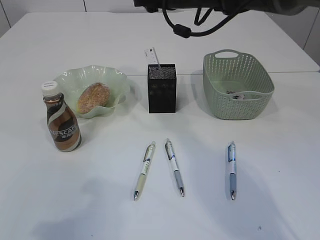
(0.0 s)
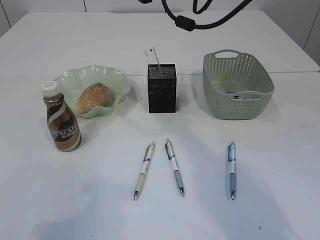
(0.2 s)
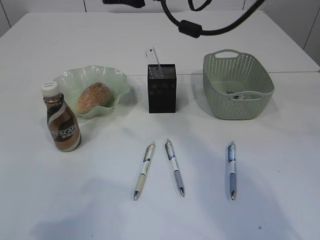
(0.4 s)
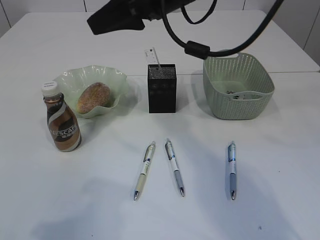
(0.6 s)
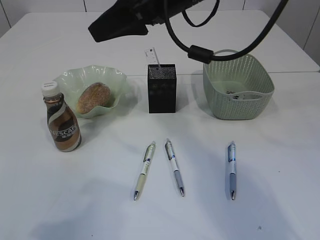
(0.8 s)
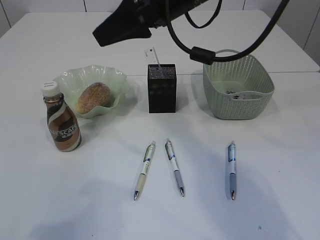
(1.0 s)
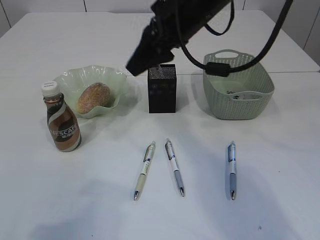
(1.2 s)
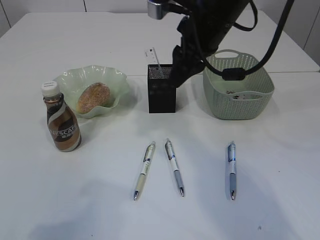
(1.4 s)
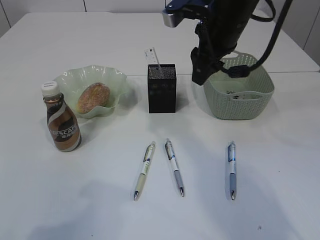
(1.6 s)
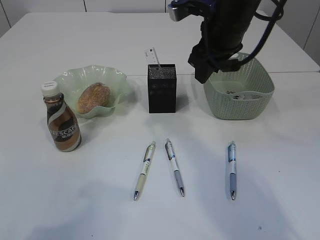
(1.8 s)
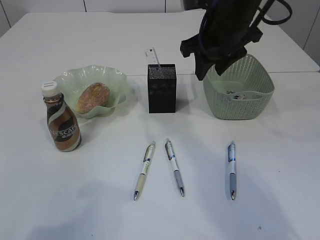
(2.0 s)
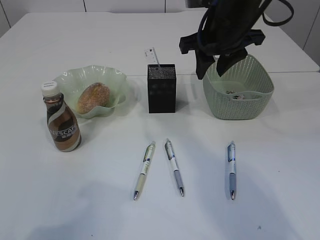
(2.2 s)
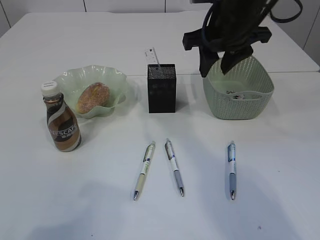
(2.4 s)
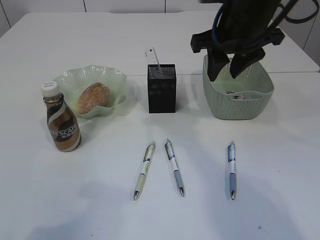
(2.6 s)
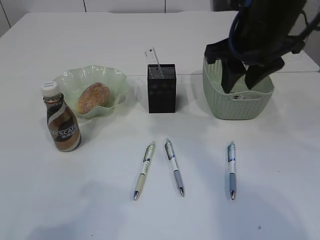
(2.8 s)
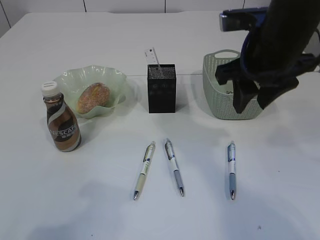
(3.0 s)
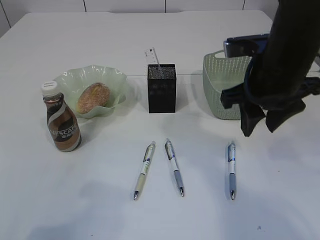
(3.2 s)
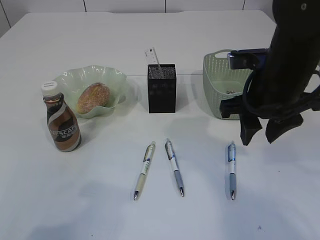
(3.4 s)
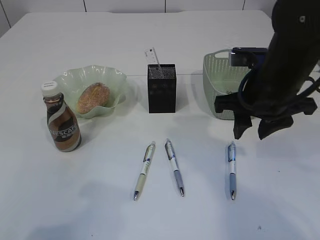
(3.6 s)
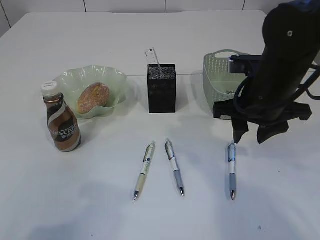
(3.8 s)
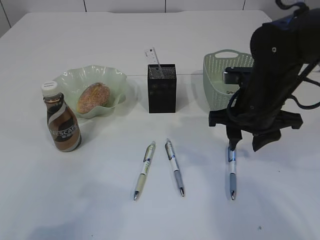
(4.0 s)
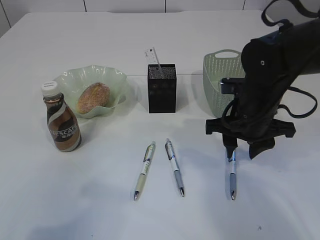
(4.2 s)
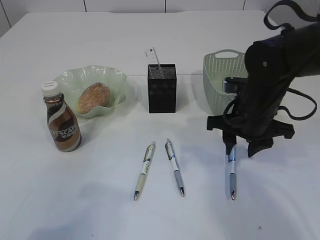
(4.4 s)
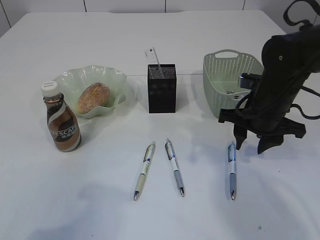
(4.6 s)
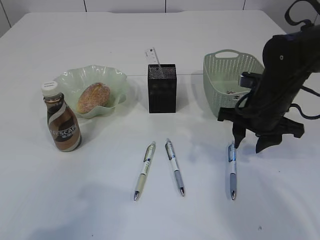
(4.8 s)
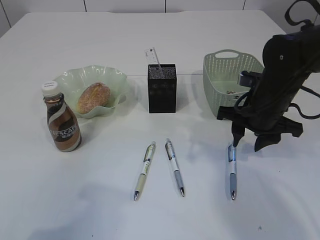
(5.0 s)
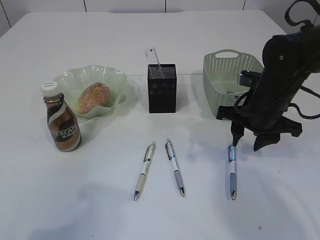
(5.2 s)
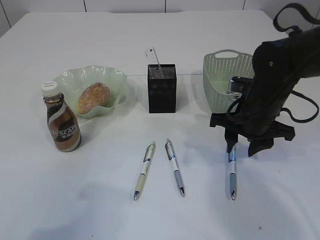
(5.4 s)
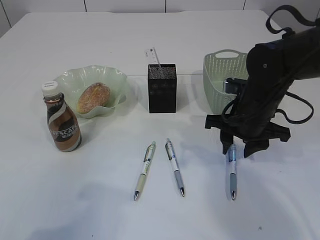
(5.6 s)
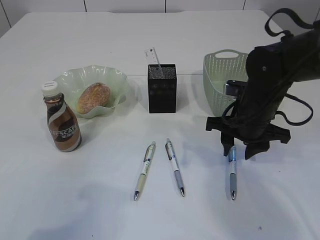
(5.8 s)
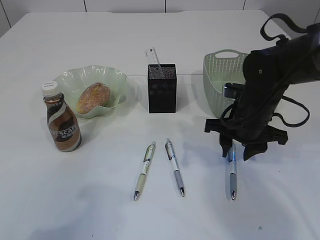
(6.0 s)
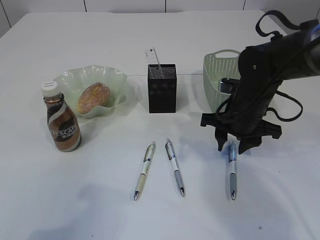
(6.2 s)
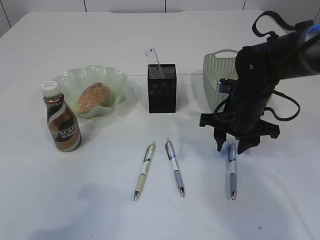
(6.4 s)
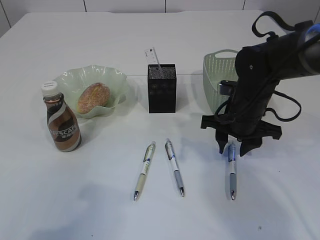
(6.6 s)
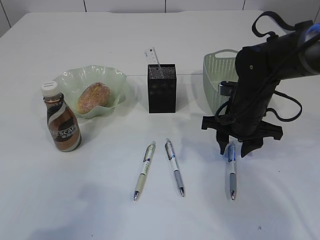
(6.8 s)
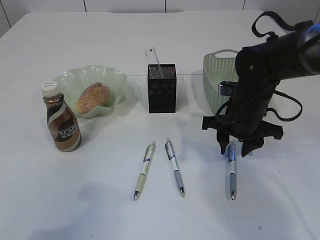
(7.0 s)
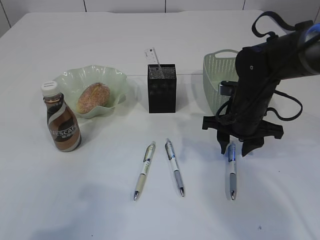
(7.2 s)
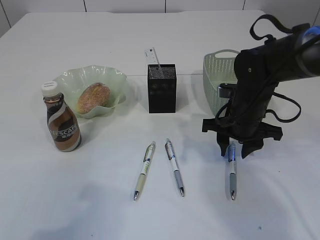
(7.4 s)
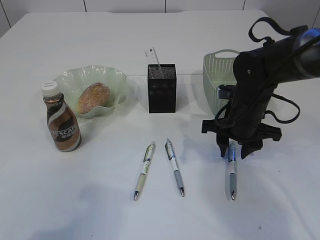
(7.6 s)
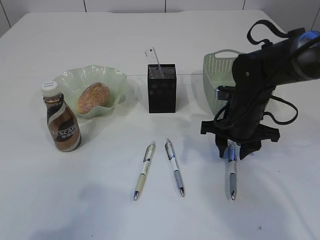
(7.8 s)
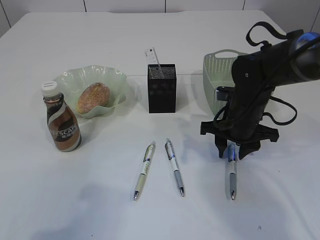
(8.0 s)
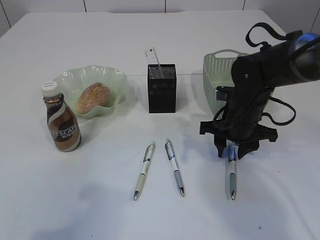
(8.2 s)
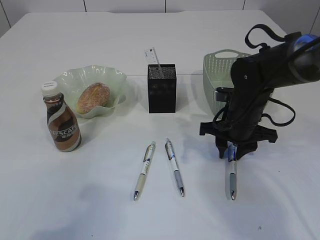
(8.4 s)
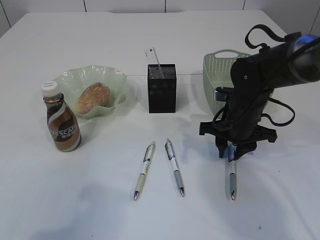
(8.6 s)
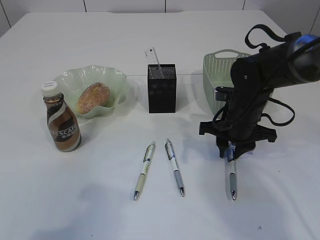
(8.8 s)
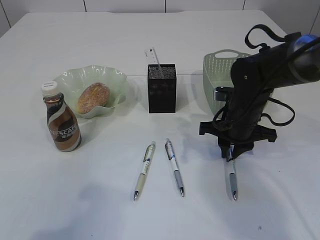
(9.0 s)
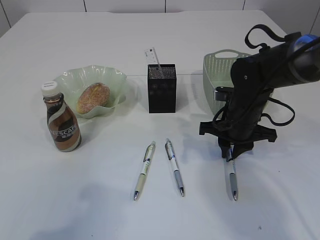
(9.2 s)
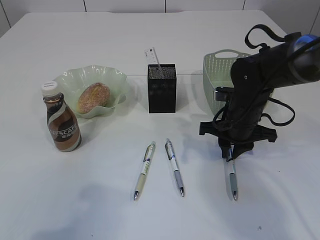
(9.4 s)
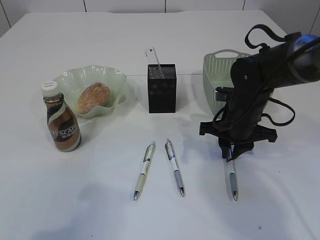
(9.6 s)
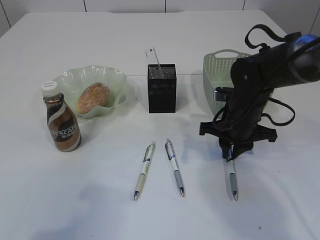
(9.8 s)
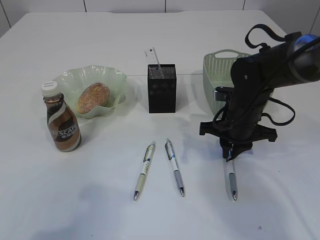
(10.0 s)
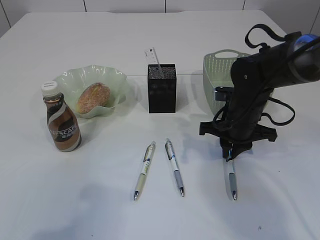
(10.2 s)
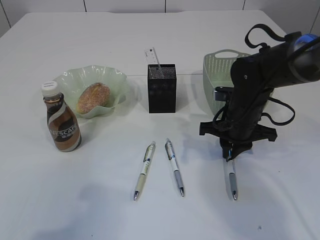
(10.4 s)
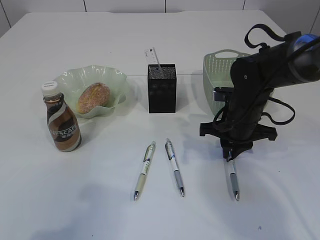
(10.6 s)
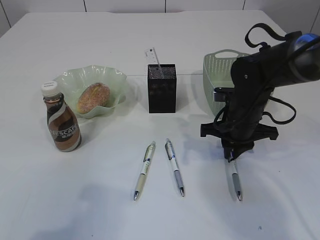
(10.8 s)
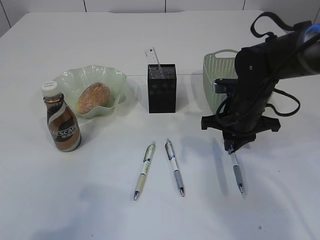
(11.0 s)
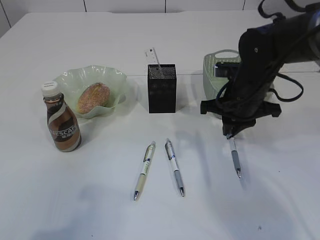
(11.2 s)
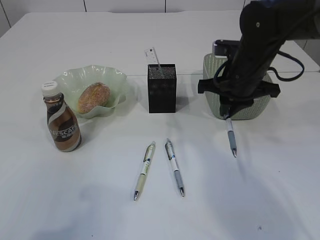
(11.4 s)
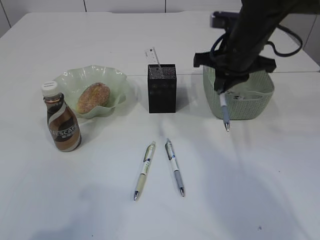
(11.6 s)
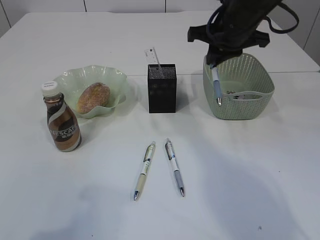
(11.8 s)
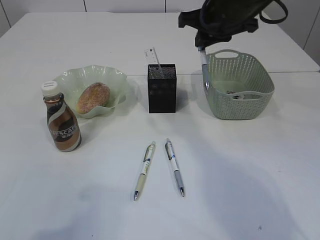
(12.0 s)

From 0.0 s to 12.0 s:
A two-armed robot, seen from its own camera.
Step, from 0.0 s to 11.4 s: Pick up the pen with right arm.
From 0.0 s to 1.6 s: The right gripper goes roughly 5 cm backward.
From 1.6 s to 3.0 s: The right gripper is displaced backward by roughly 10 cm.
From 3.0 s to 4.4 s: The right gripper is displaced downward by approximately 15 cm.
From 4.4 s to 7.6 s: There are only small adjustments of the grippers.
From 7.6 s to 10.4 s: Both grippers stay about where they are.
From 10.4 s to 12.0 s: The right gripper goes roughly 15 cm upward.

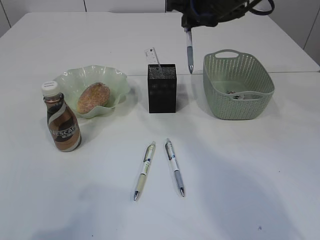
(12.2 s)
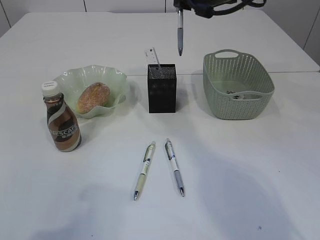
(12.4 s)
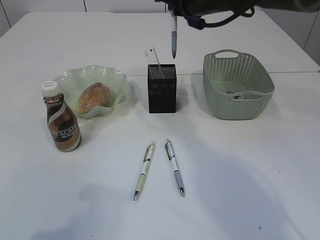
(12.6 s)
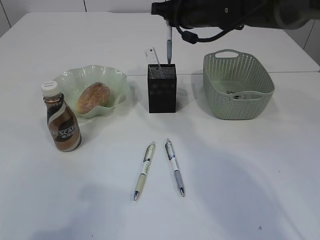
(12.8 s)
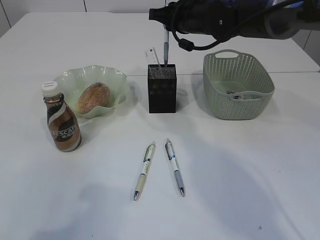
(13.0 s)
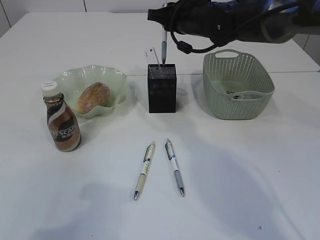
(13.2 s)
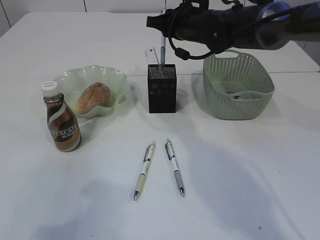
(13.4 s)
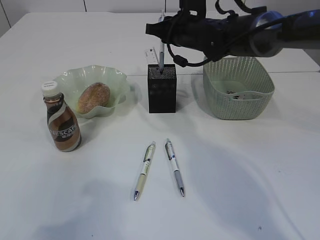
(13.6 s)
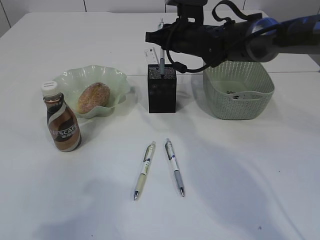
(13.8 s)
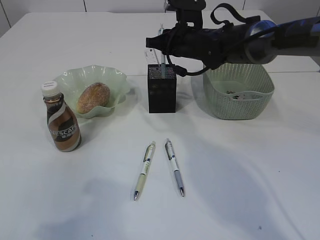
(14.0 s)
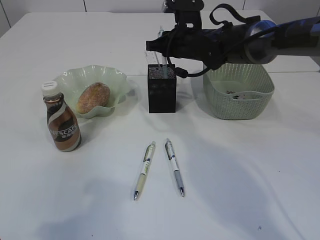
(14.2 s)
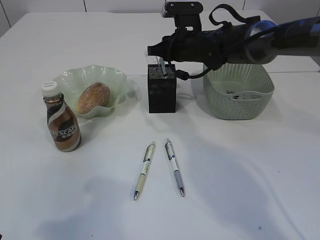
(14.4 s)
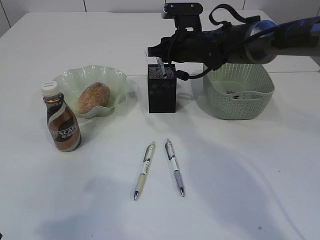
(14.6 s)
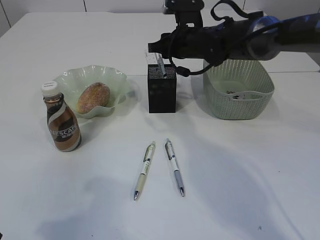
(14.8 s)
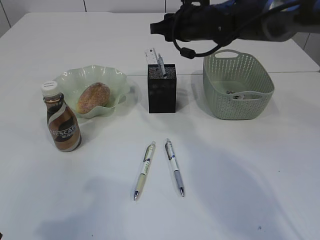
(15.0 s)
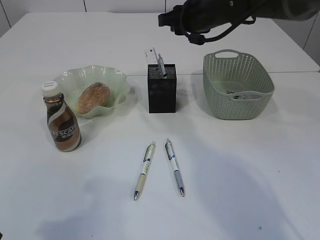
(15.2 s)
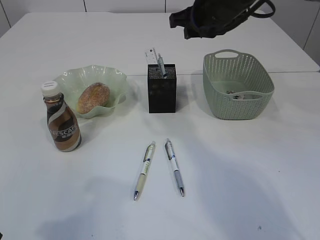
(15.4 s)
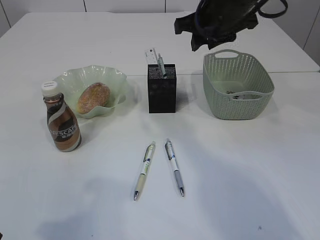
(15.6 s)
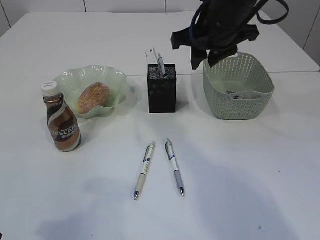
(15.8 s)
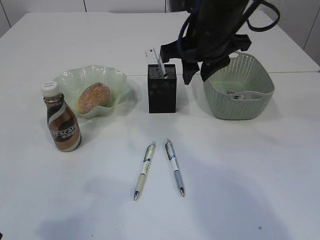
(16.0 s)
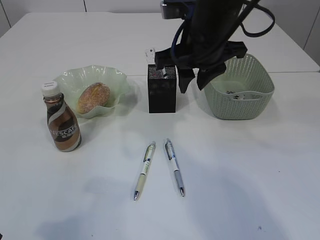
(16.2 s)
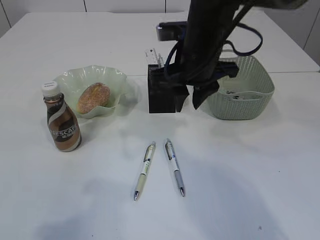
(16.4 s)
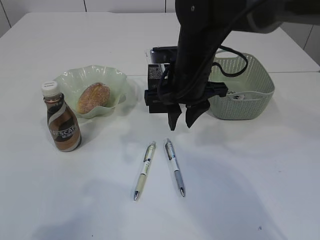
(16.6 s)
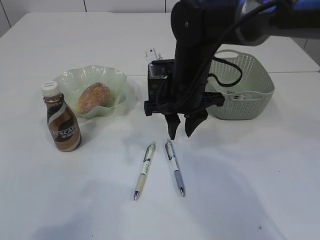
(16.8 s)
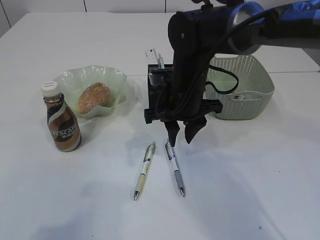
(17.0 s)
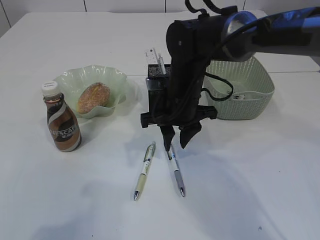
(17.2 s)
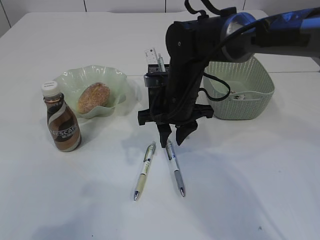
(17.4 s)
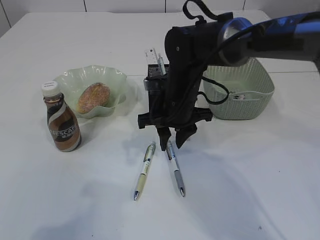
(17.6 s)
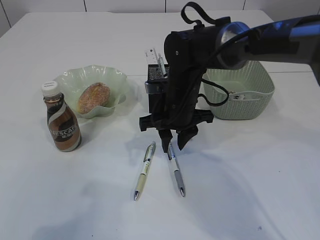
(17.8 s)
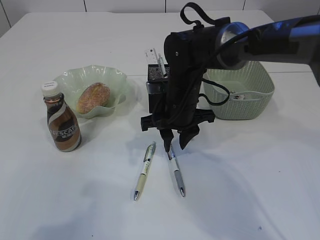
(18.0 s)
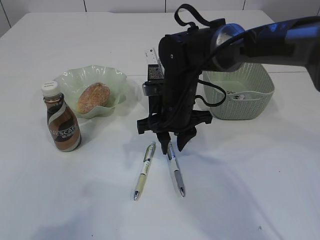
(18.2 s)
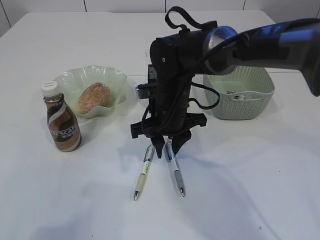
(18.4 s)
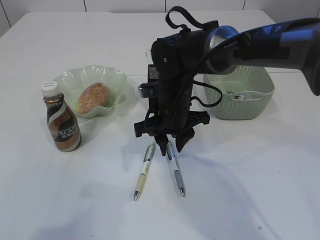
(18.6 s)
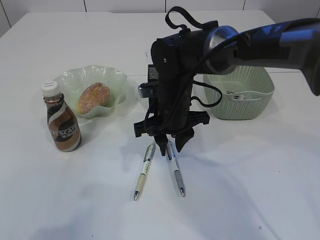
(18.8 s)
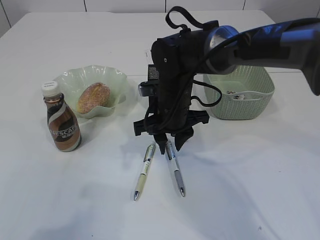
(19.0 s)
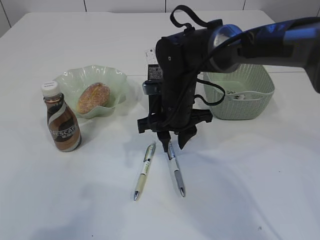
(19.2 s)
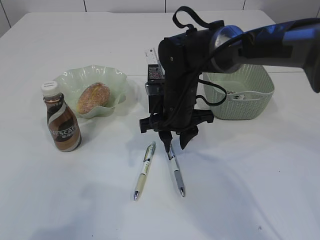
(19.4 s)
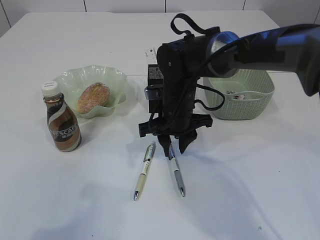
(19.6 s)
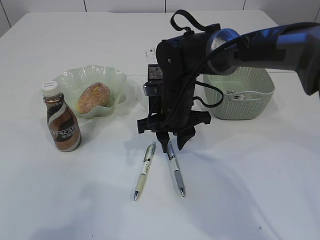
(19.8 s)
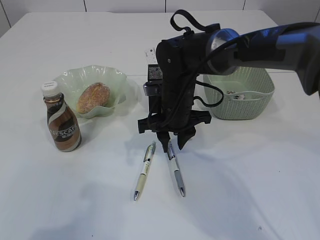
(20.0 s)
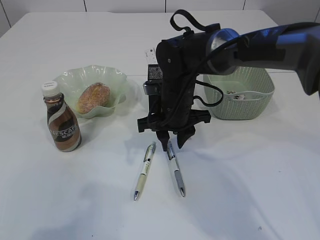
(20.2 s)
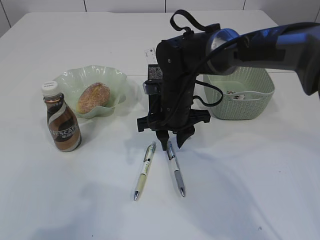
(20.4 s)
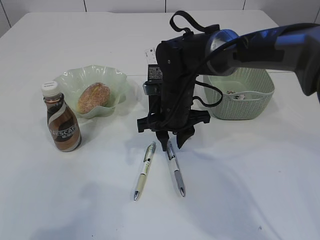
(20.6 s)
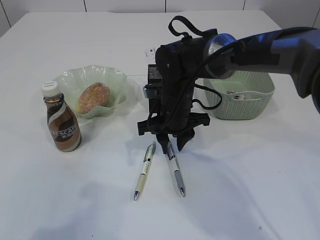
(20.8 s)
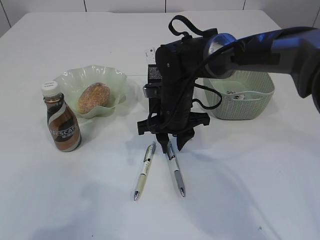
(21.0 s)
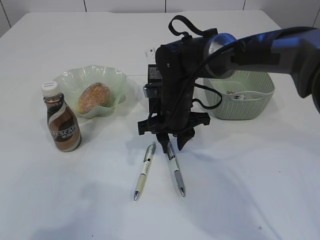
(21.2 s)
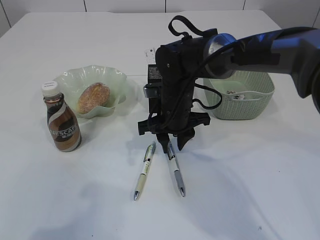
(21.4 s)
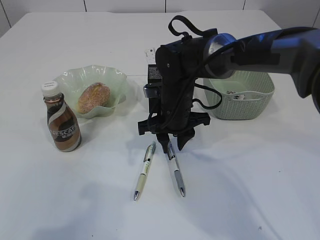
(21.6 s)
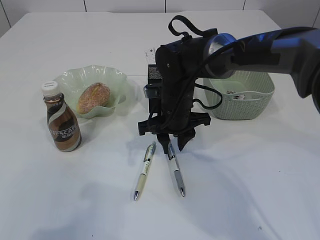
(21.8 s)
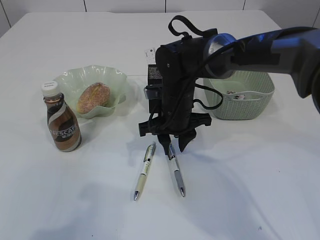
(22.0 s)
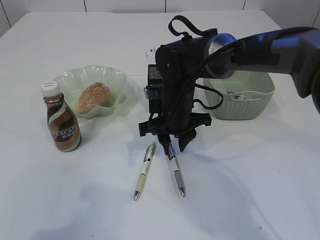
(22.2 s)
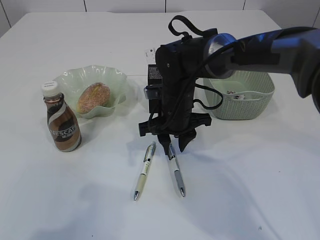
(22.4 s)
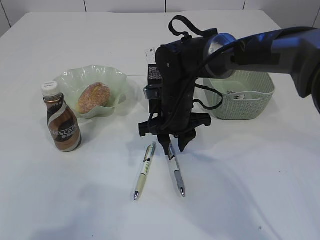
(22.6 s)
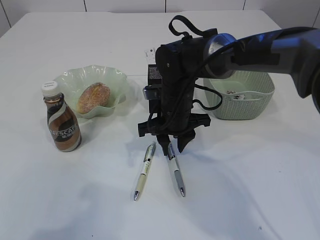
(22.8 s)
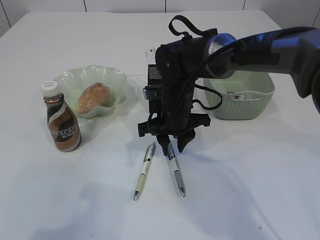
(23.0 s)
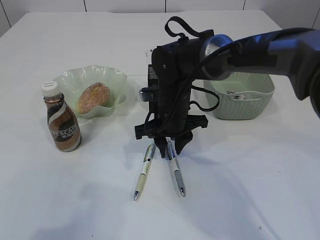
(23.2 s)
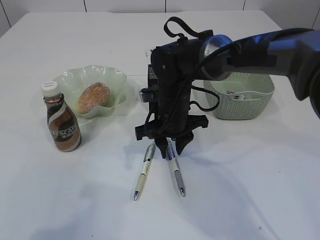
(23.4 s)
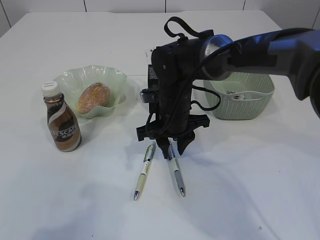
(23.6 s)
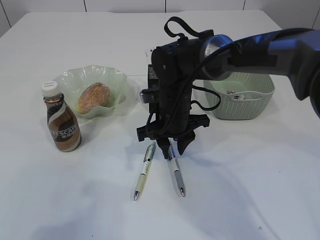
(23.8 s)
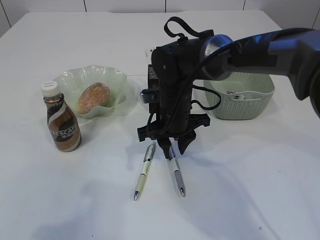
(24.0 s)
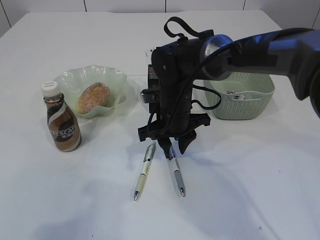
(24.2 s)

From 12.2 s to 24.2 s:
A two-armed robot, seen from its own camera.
Step, from 12.2 s to 15.2 s: Place the pen into the pen holder.
From 12.2 s to 13.8 s: The right gripper goes roughly 10 cm downward and forward.
From 13.8 s to 15.2 s: The right gripper travels upward by approximately 5 cm.
From 15.2 s to 16.6 s: The right gripper travels backward and downward by some 10 cm.
From 16.6 s to 18.2 s: The right gripper shifts about 5 cm downward.
From 18.2 s to 19.8 s: Both grippers stay about where they are.
From 19.8 s to 22.6 s: Neither gripper changes place.
From 22.6 s to 24.2 s: Both grippers stay put.
